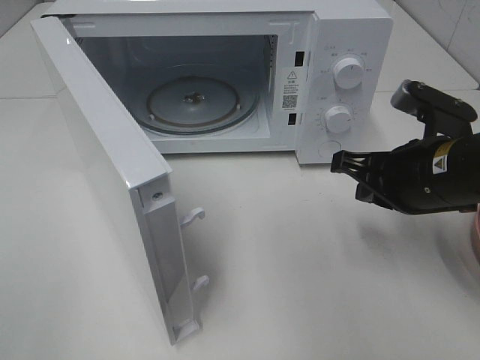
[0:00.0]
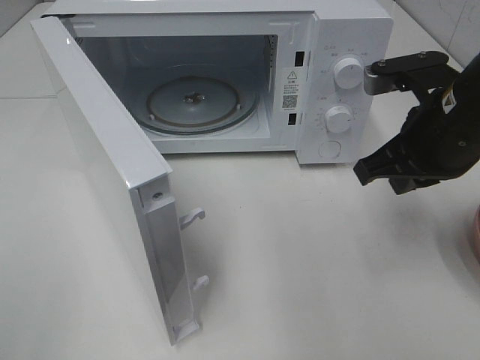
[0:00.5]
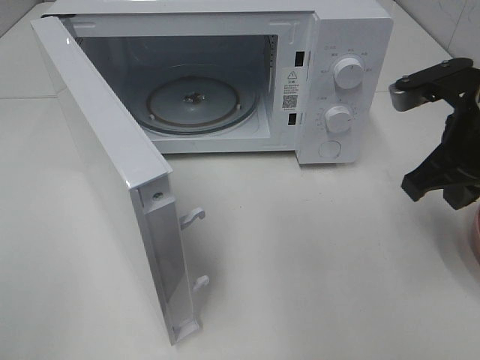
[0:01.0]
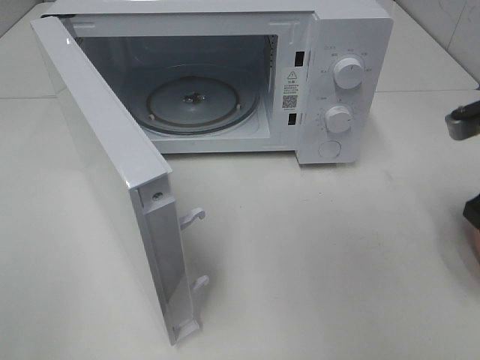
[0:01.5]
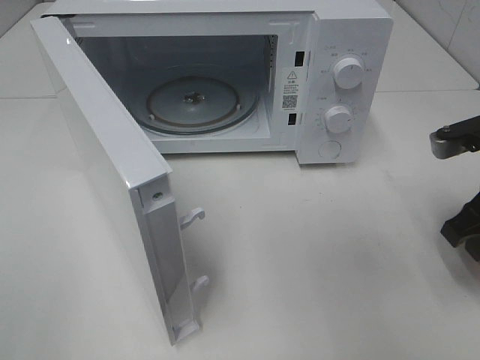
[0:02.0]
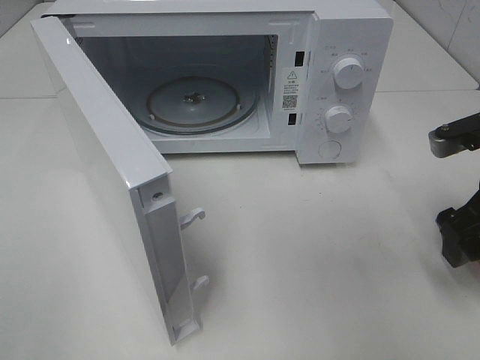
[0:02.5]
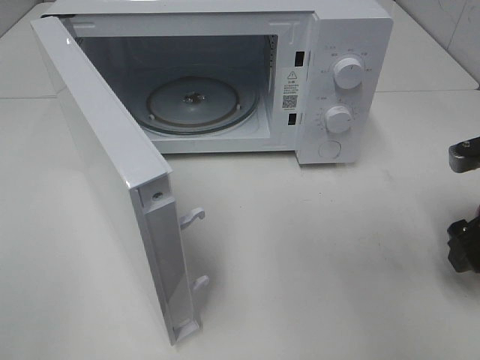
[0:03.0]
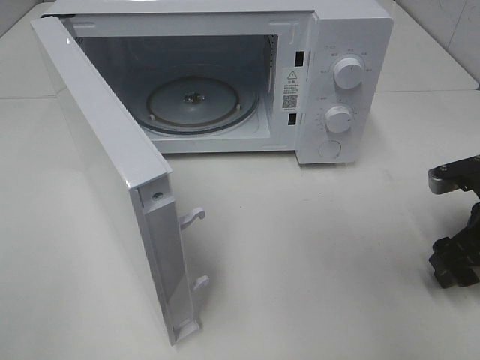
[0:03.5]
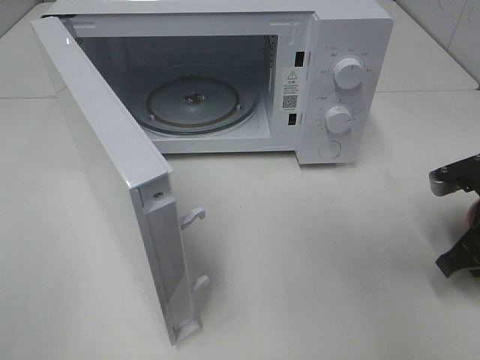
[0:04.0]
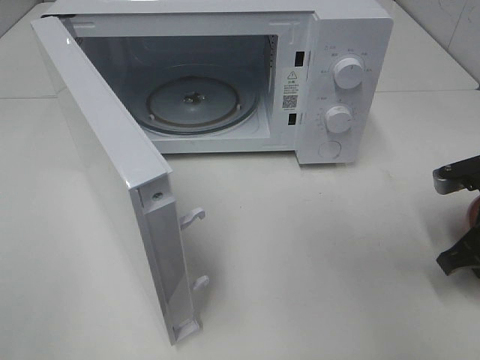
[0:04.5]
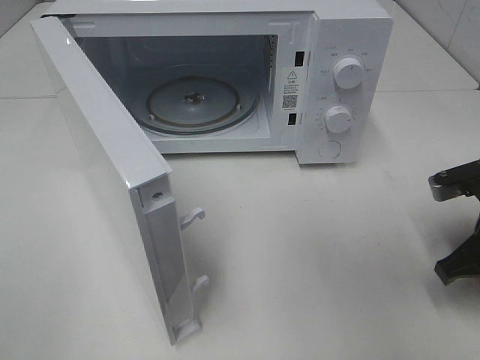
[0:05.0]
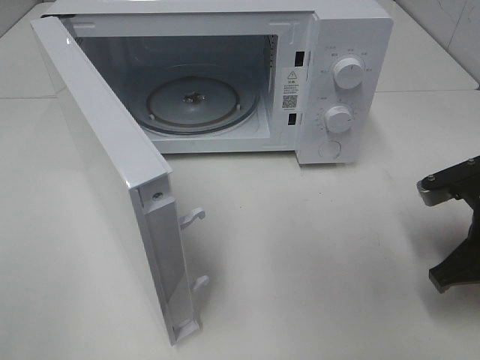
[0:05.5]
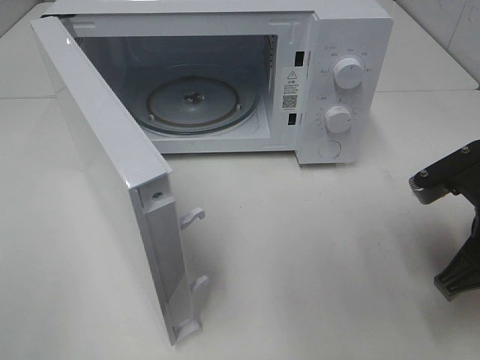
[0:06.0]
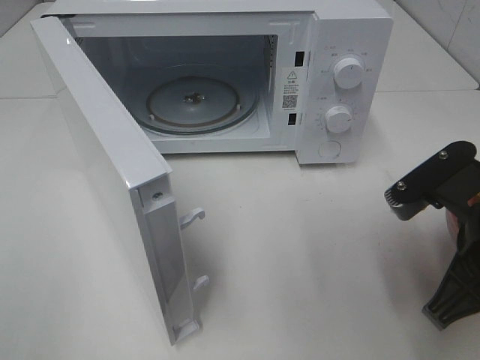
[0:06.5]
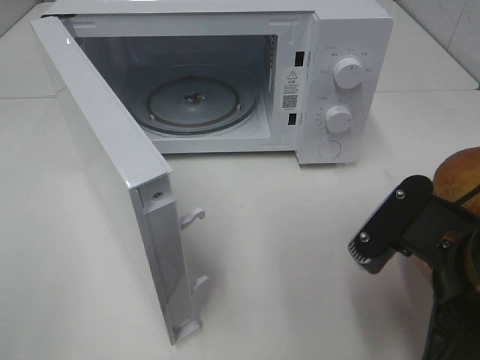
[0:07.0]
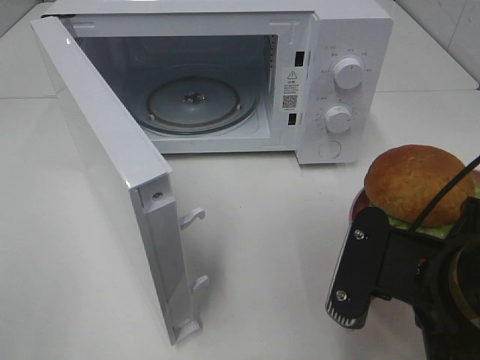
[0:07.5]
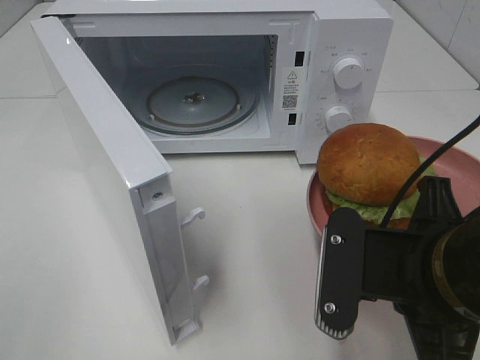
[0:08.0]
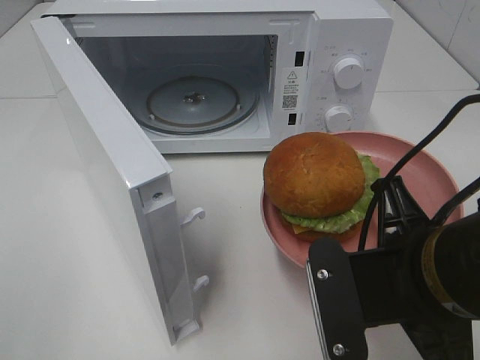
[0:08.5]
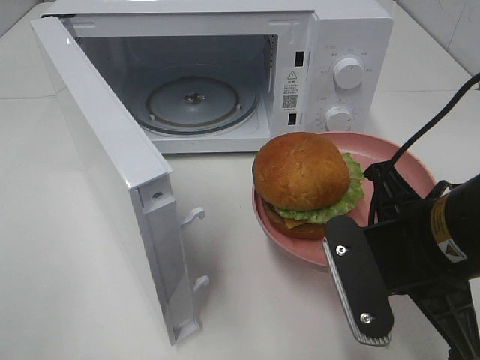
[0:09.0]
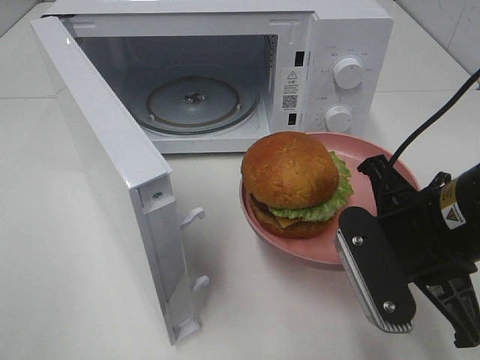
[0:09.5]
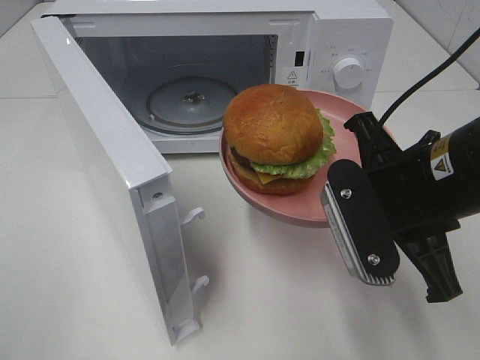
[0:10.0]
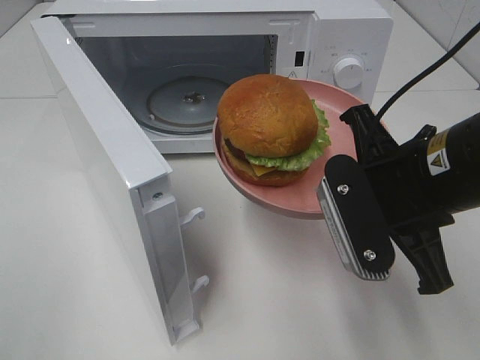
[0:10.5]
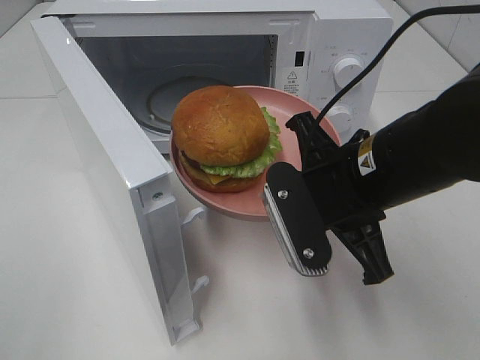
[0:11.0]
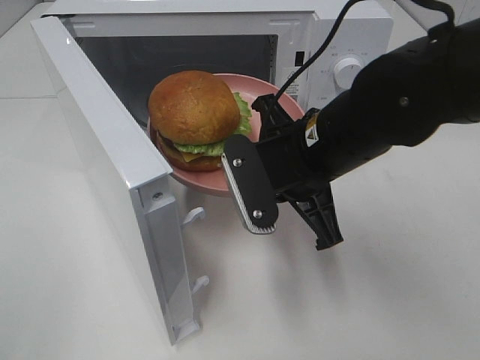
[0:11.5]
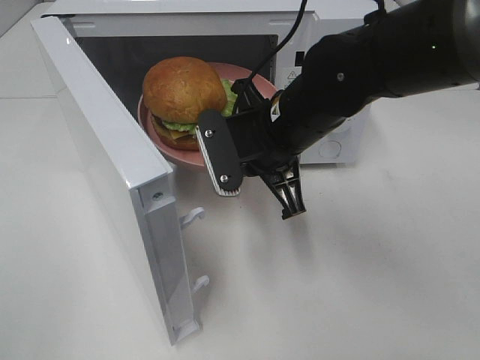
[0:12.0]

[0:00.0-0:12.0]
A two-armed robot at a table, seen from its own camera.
Task of the whole recording: Heat the burger.
Step, 0:00.0 to 0:04.0: Right hand: grab the plate with the hamburger.
0:00.0 to 0:02.0: The right gripper moves to the right, roughly 10 cm, and opens up.
0:02.0 to 0:04.0: The right gripper shifts roughly 5 cm downward, and closes up.
0:04.0 to 0:06.0: The right gripper heads to the left and upward, covering some 10 cm.
0:06.0 to 0:08.0: The right gripper moves to the left and backward, roughly 10 cm.
0:08.0 to 0:10.0: The right gripper is displaced forward by approximately 5 cm.
0:10.0 to 0:12.0: The right gripper is displaced forward and to the left by some 15 cm.

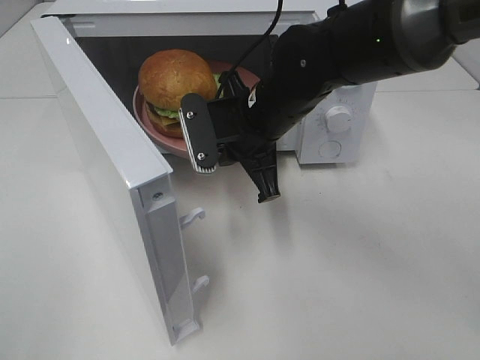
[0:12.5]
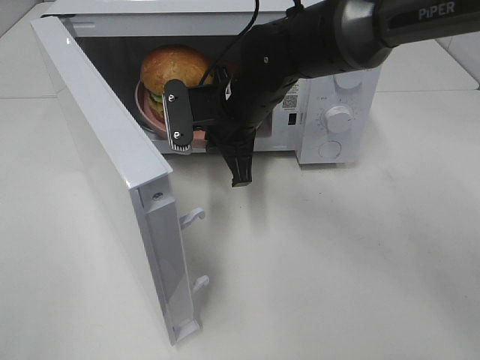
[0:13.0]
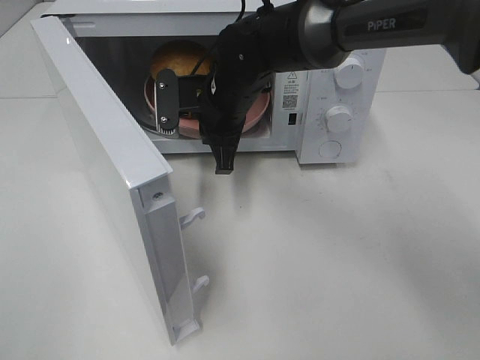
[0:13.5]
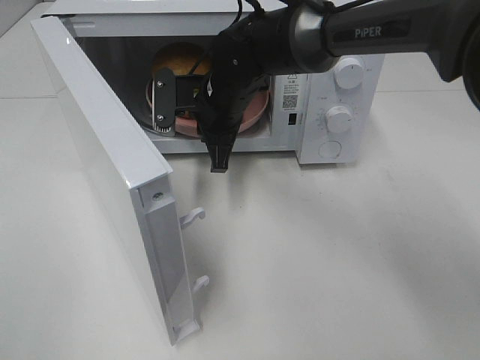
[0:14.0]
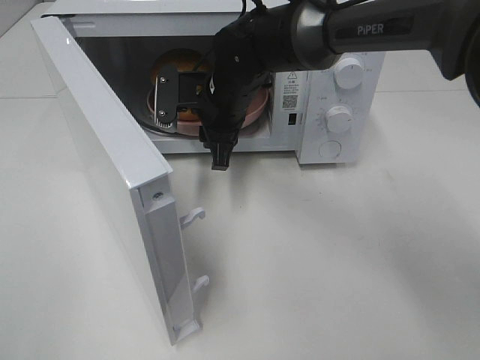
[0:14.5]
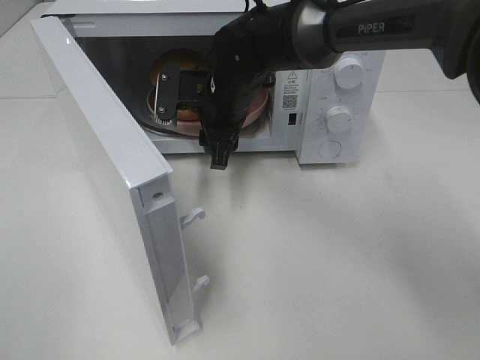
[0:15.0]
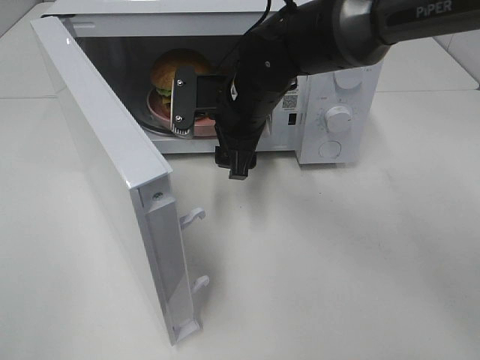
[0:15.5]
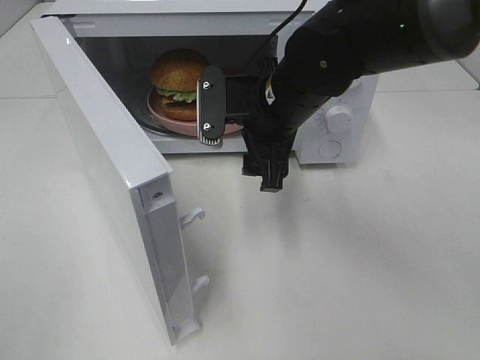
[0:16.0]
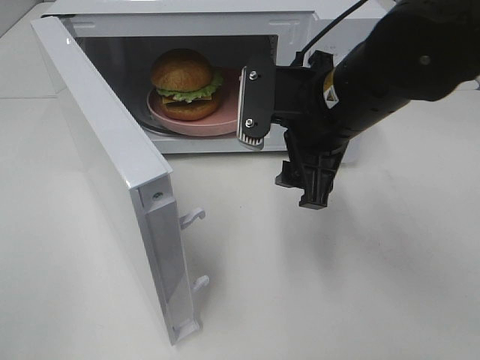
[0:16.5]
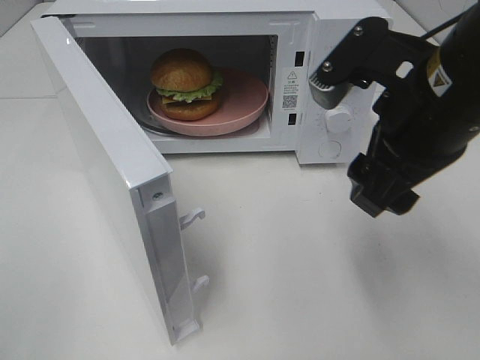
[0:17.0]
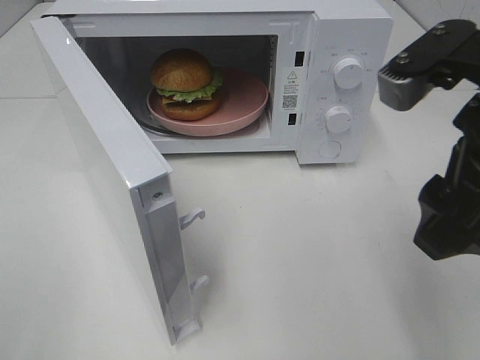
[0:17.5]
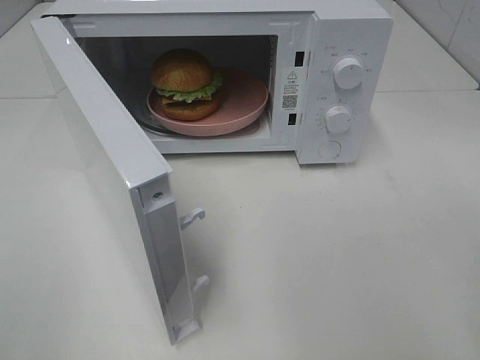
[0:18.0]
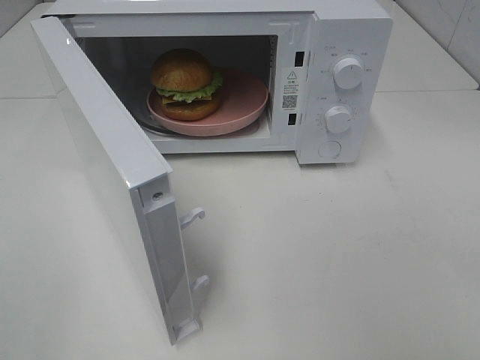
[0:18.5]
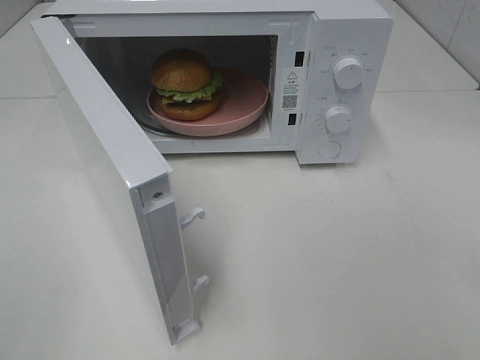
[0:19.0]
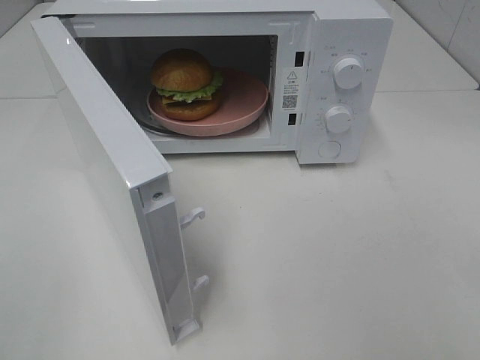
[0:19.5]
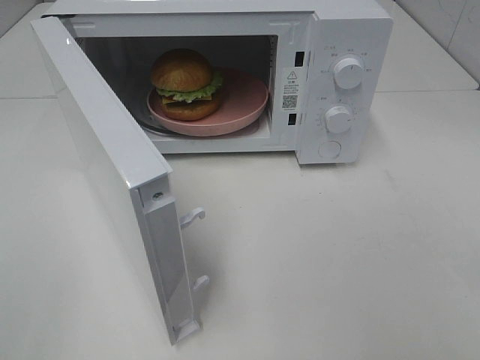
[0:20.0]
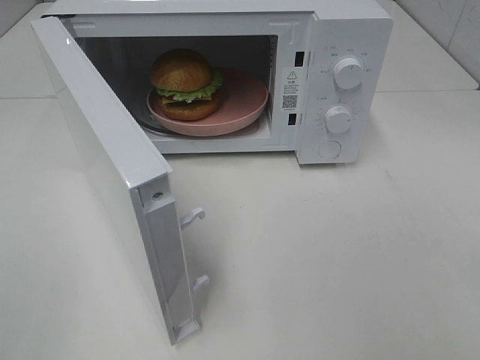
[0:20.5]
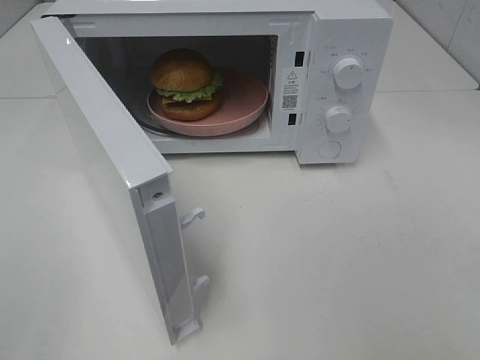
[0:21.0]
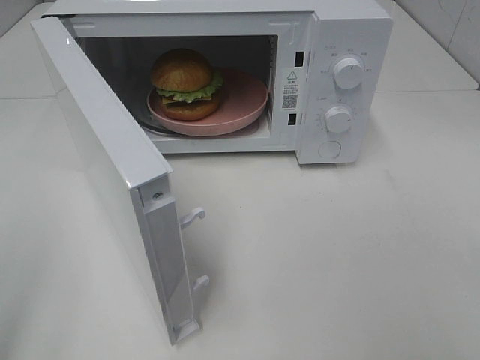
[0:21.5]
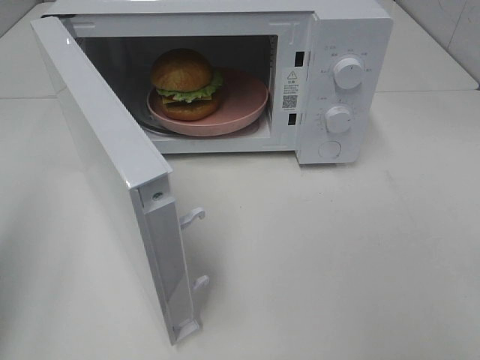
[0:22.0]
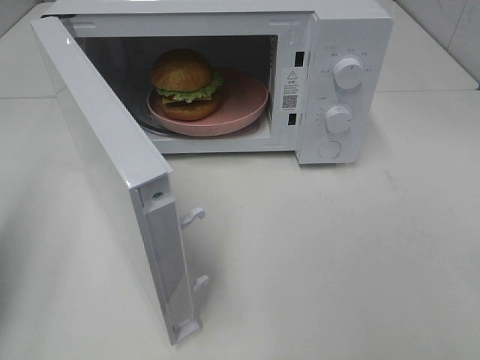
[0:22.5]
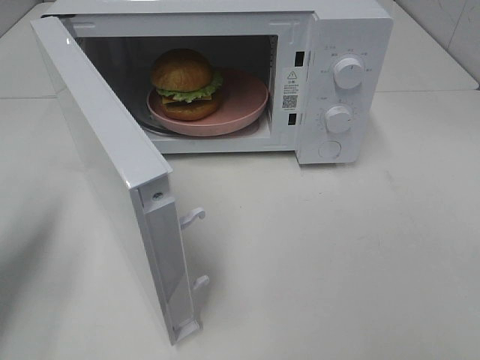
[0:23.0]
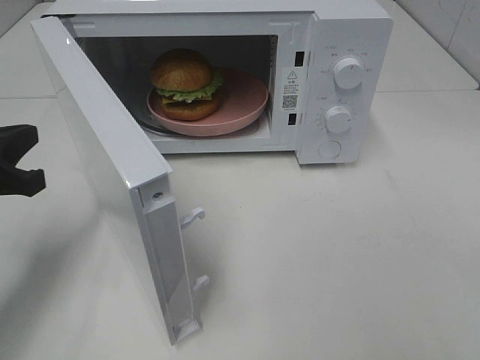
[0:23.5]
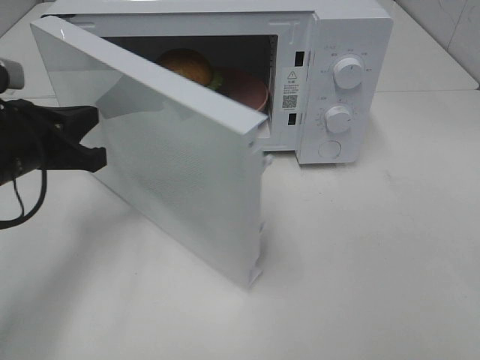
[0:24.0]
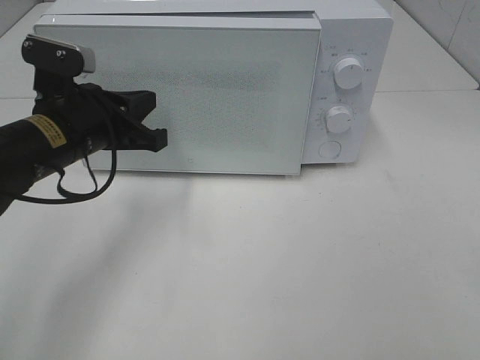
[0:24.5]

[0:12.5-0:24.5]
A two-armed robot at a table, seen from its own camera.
Task of the whole recording: Heat the burger.
0:12.5 to 0:14.5: The right gripper heads forward, covering about 5 cm, and opens up.
0:14.5 to 0:16.5: The right gripper heads backward, to the right and upward, covering about 20 cm, and opens its fingers.
0:16.5 to 0:18.5: The right gripper moves backward and to the right, roughly 30 cm.
0:20.5 to 0:22.5: The left gripper moves forward, some 15 cm, and closes up.
0:22.5 to 0:24.5: The left gripper goes approximately 25 cm to the right, forward and downward.

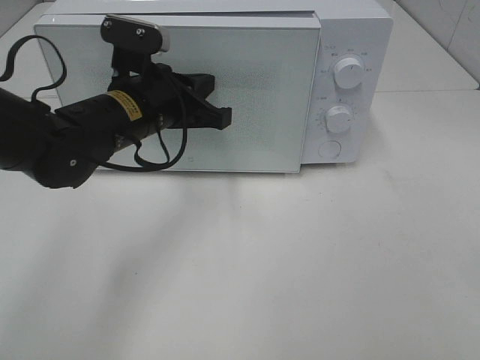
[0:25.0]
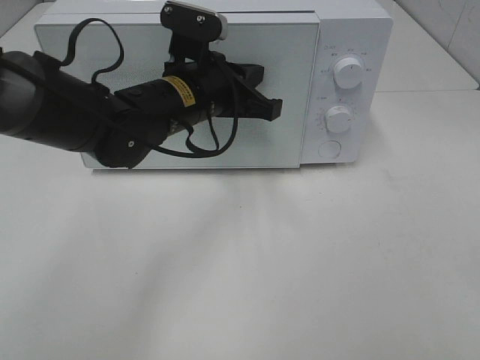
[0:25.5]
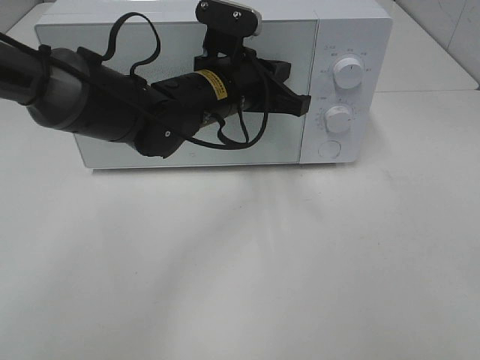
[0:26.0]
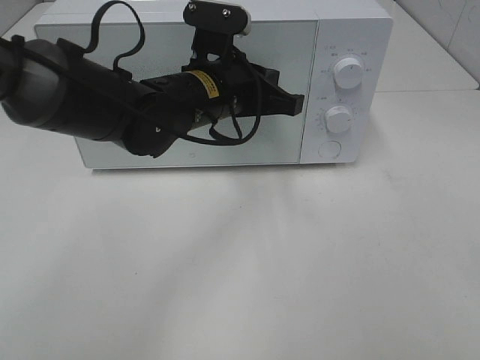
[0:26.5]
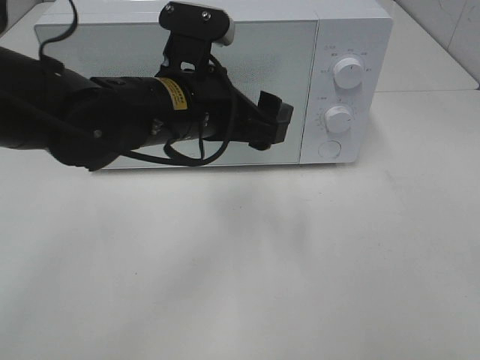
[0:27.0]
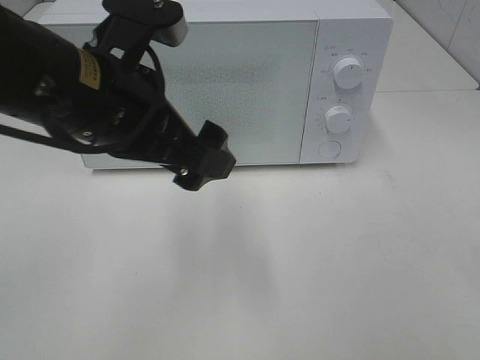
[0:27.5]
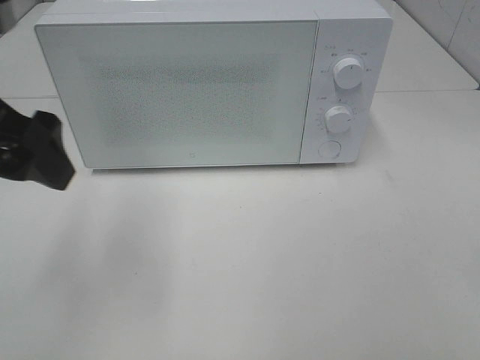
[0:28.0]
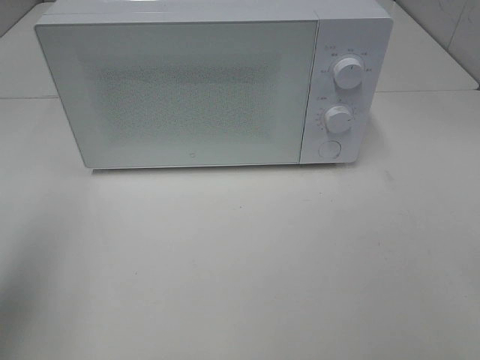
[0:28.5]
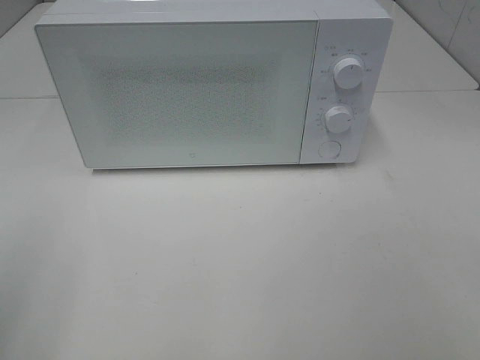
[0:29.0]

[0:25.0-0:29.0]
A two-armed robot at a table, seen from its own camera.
Task of the whole recording: Heat the burger.
0:25.0 to 0:27.0: The left gripper is displaced backward by about 5 cm, and opens its fingers.
0:27.0 to 0:29.0: The left gripper travels to the left and backward by approximately 35 cm.
